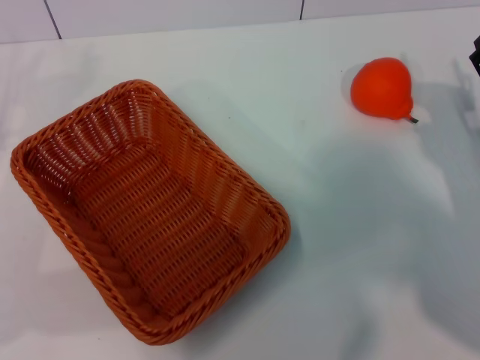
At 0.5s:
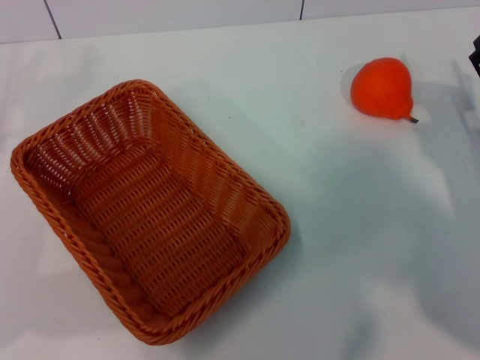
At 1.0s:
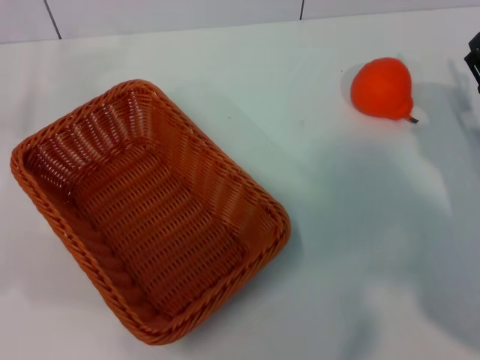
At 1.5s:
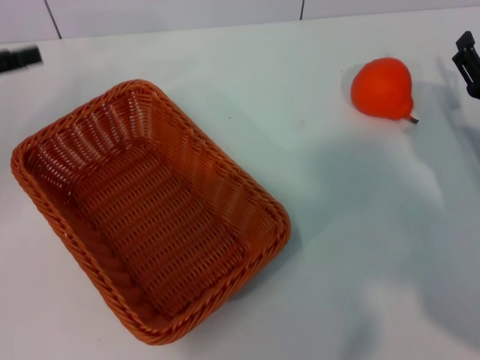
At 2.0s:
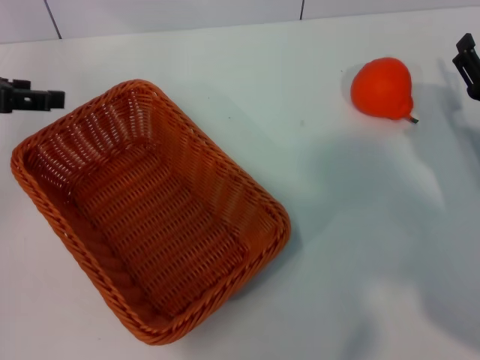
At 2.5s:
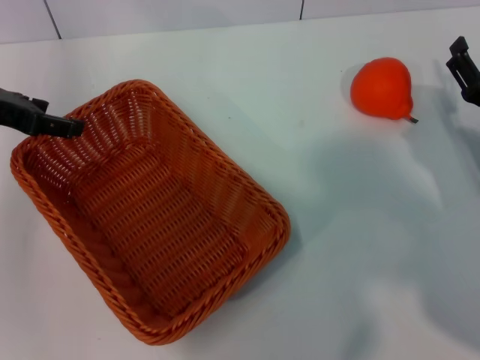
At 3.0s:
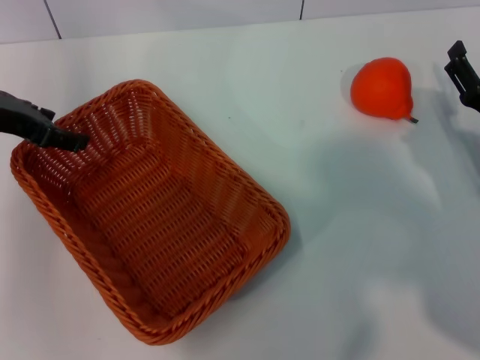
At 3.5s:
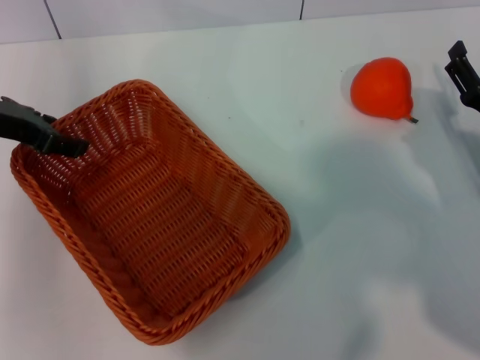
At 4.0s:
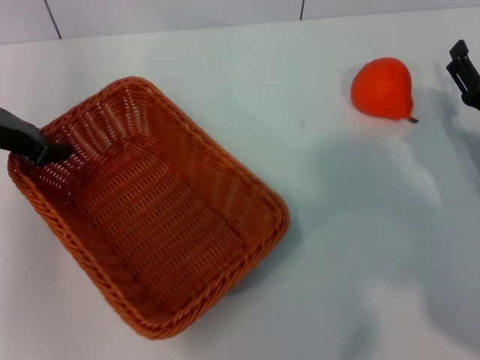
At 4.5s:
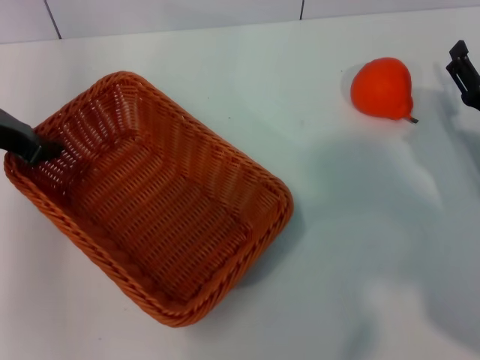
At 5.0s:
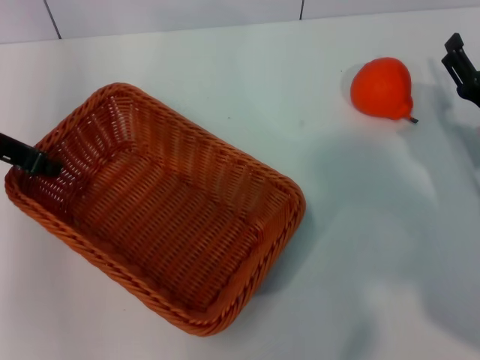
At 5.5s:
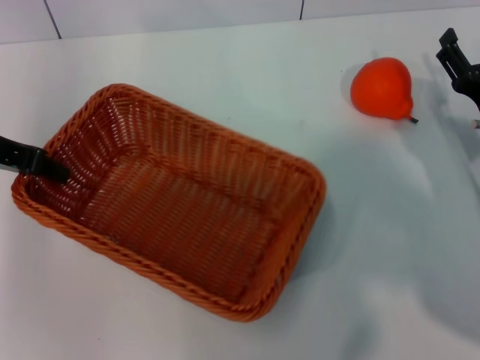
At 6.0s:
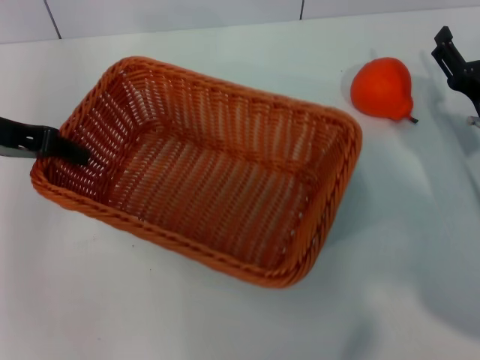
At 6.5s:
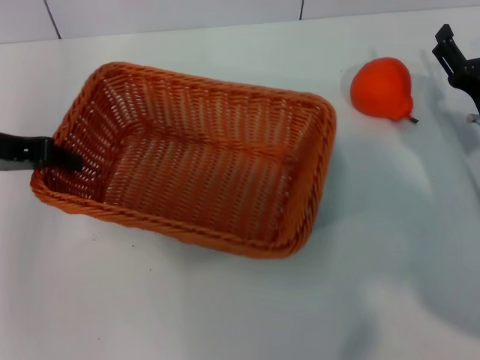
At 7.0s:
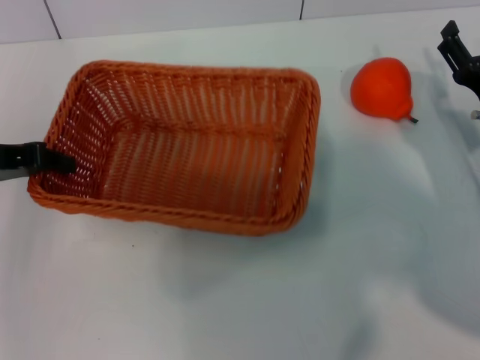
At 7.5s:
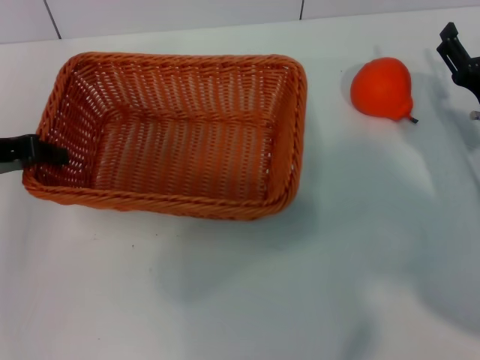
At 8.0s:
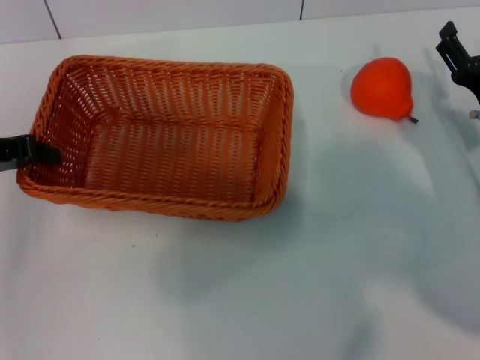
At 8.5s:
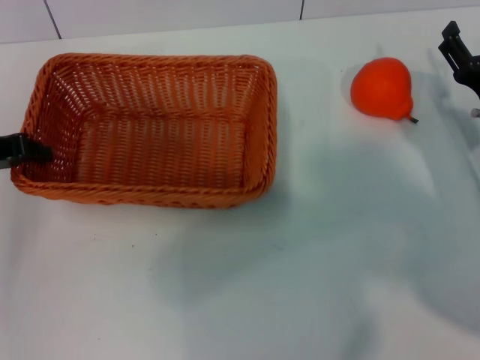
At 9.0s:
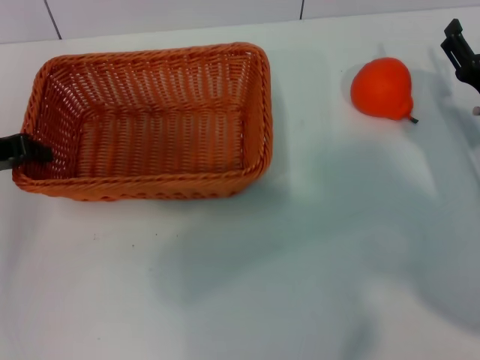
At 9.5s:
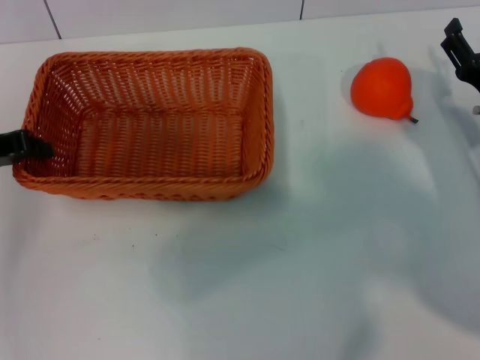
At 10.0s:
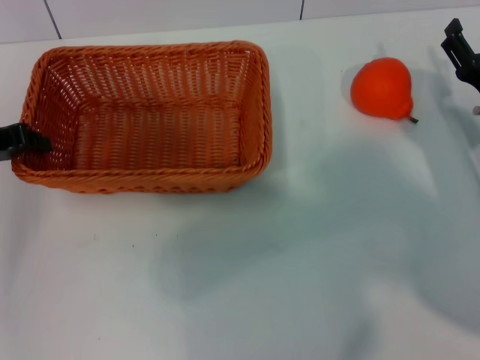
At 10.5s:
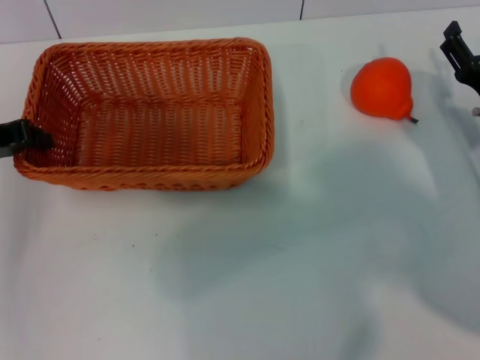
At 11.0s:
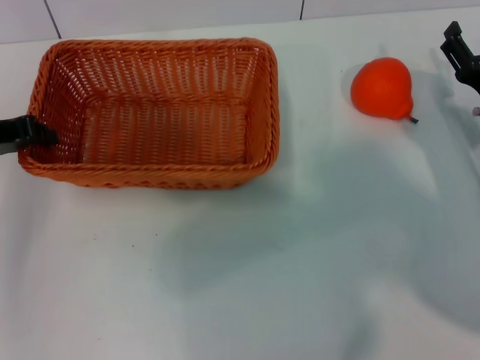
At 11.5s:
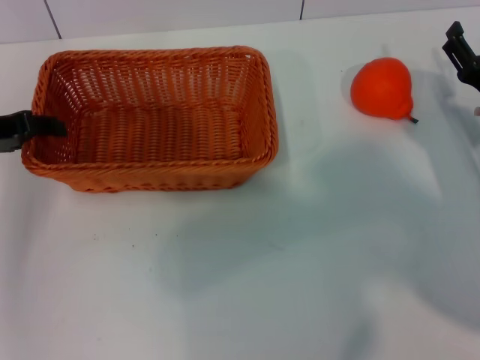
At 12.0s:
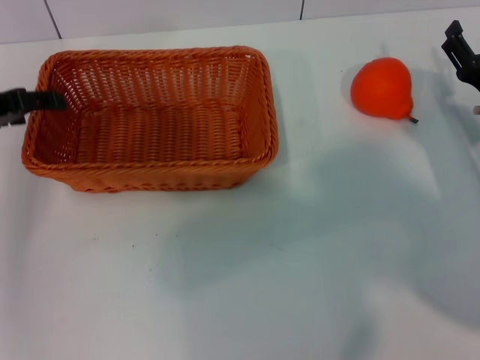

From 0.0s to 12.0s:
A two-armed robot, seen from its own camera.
Task of the whole recording: the left gripper pick up the yellow basket and place it horizontally in the middle of the table, the right gripper pick up the orange and place it into the yellow basket.
Step, from 0.0s to 5.5s: Pick up the light basket with the left gripper.
From 0.0s to 2.0s: The left gripper moves upward and forward, roughly 15 cm.
From 2.0s to 4.0s: The left gripper moves about 5 cm, and closes its fingers.
From 4.0s to 6.0s: The left gripper closes its fingers.
From 6.0s to 8.0s: The left gripper changes place by approximately 5 cm.
From 8.0s to 10.0s: The grippers stay close to where they were, moving slightly.
From 10.0s to 12.0s: The left gripper opens up.

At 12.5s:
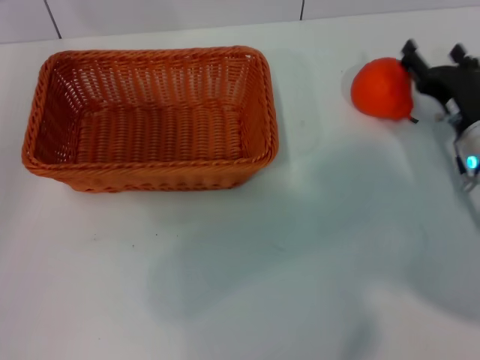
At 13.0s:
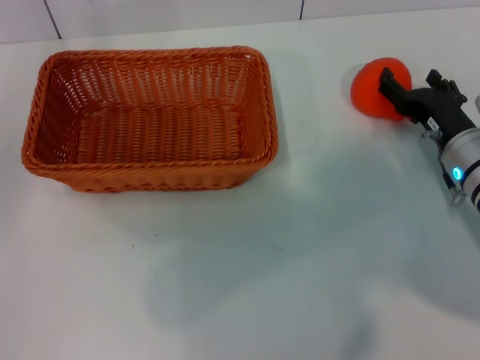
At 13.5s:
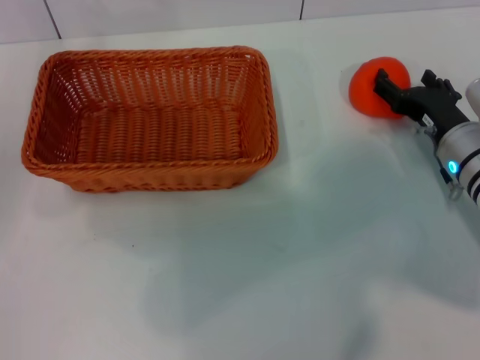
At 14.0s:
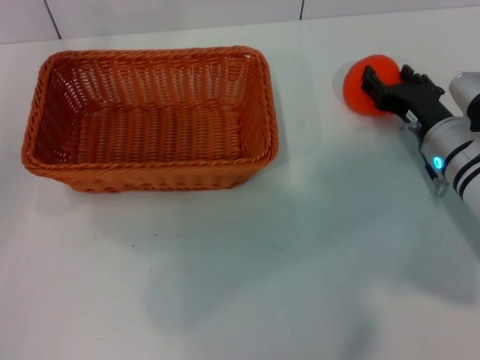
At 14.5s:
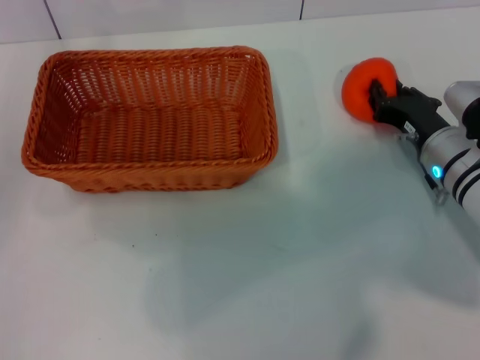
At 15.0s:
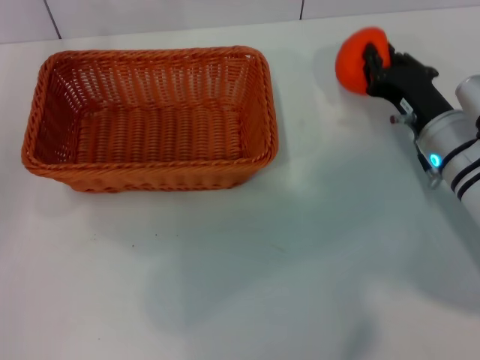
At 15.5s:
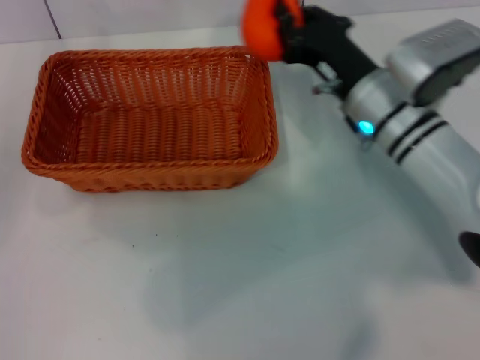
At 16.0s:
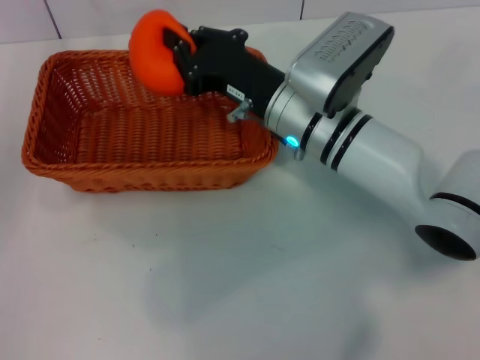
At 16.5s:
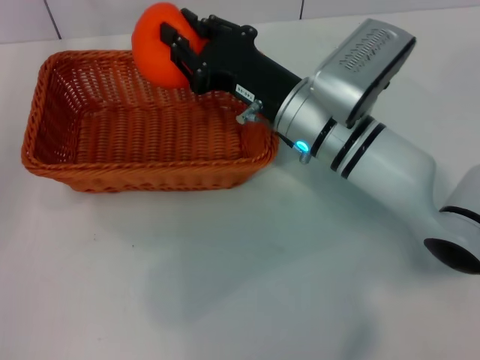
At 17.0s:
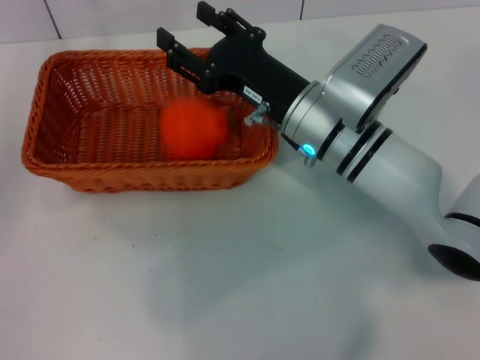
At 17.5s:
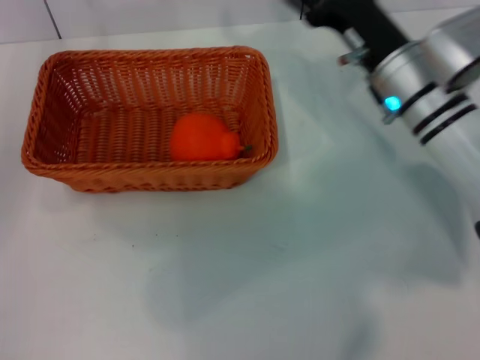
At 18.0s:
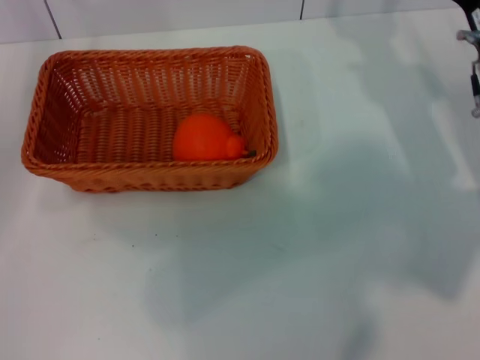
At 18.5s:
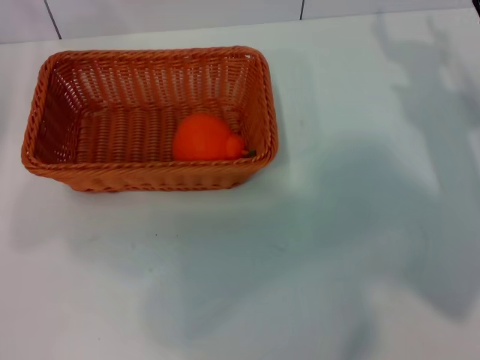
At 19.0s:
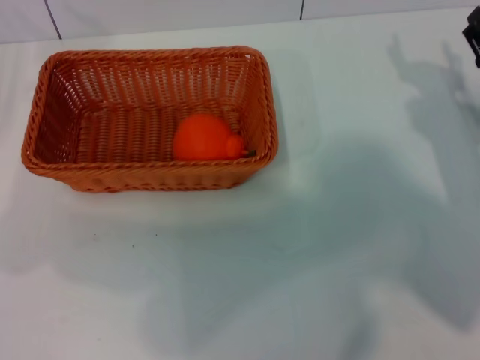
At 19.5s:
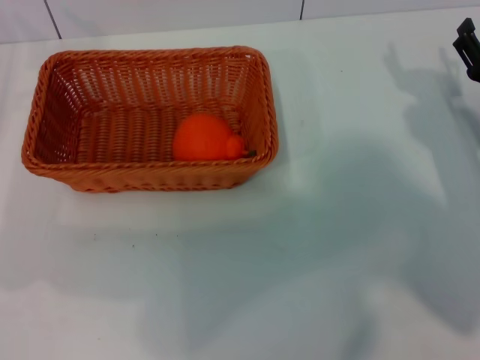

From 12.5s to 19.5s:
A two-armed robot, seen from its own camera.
Task of the whole recording: the left gripper pick up the yellow basket and place it horizontally in the middle of the table, the right gripper pick up the orange and place it into the yellow basket.
Step, from 12.5s to 15.0s: Pick up the orange with the right gripper.
Step, from 15.5s to 17.0s: Place the orange into the light basket with the right gripper.
From 12.5s to 14.5s: The right gripper closes.
From 14.5s to 16.0s: The right gripper travels to the left and upward by about 20 cm.
From 16.0s to 17.5s: The right gripper is displaced to the right by approximately 10 cm, and opens.
From 17.5s to 19.5s: The left gripper travels to the left by approximately 5 cm. The right gripper heads to the right, backward and downward, covering some 15 cm.

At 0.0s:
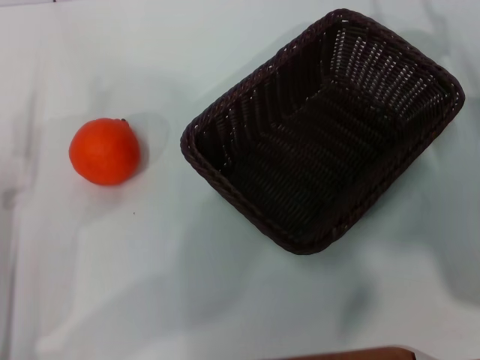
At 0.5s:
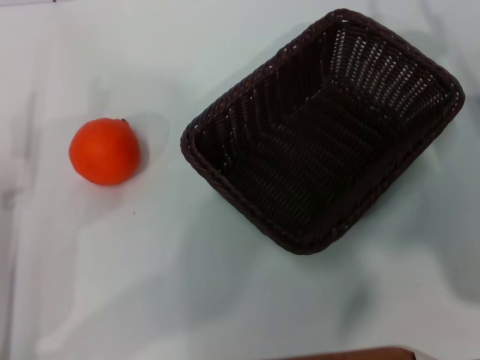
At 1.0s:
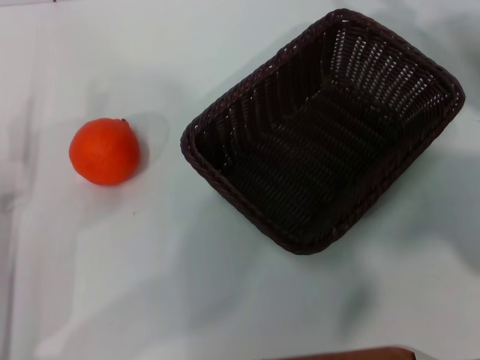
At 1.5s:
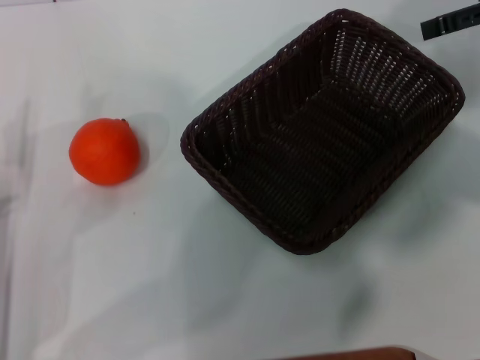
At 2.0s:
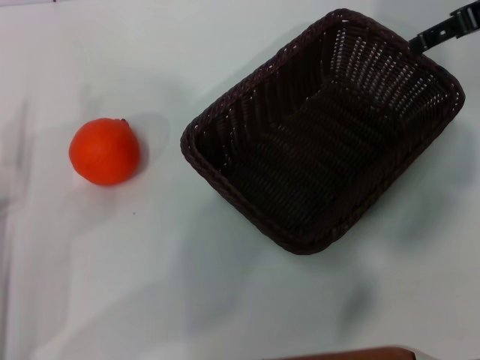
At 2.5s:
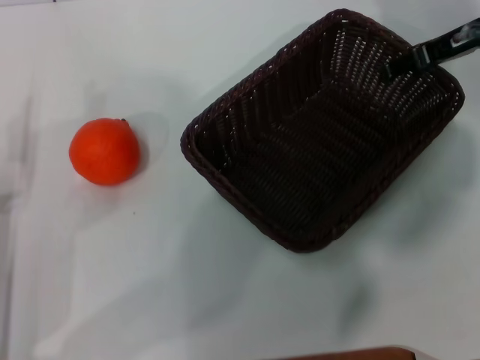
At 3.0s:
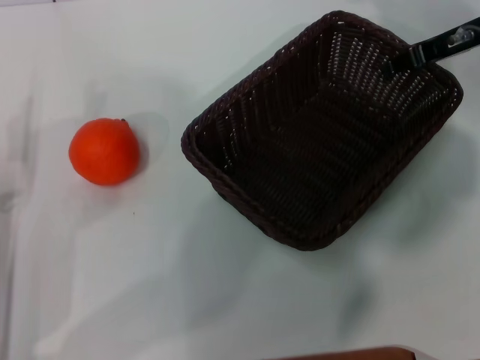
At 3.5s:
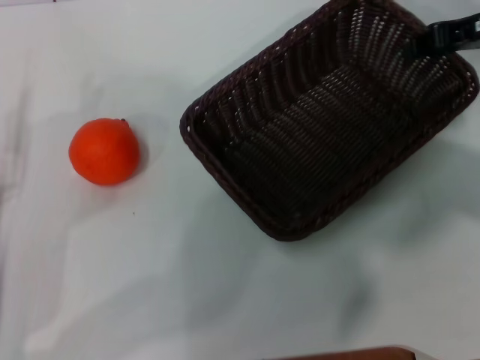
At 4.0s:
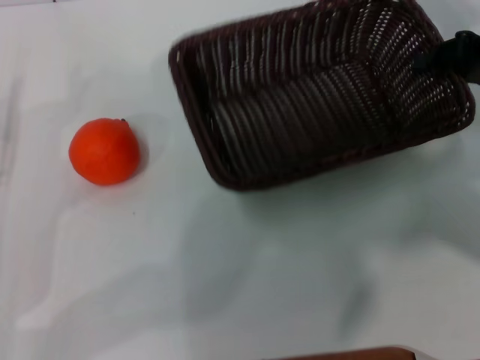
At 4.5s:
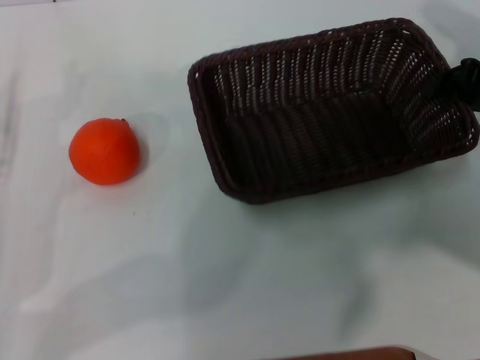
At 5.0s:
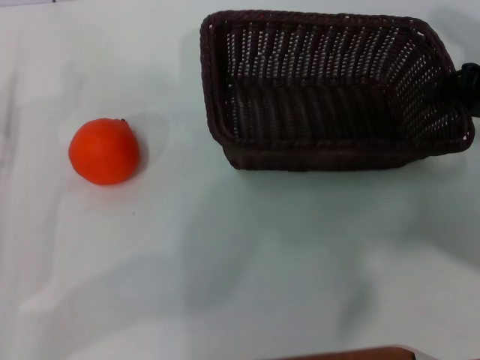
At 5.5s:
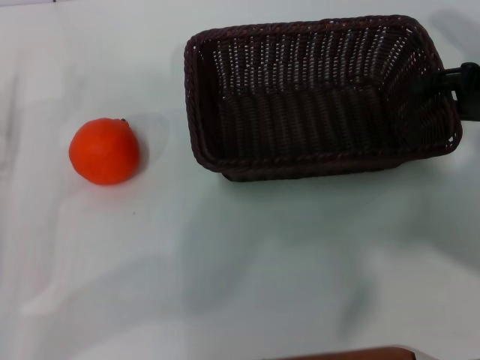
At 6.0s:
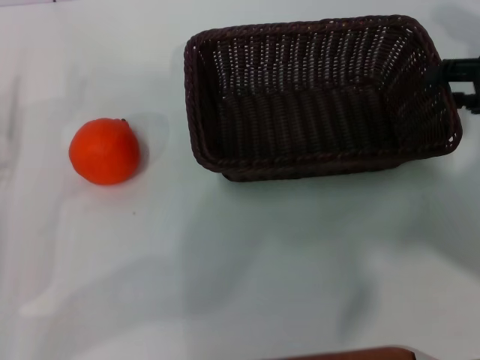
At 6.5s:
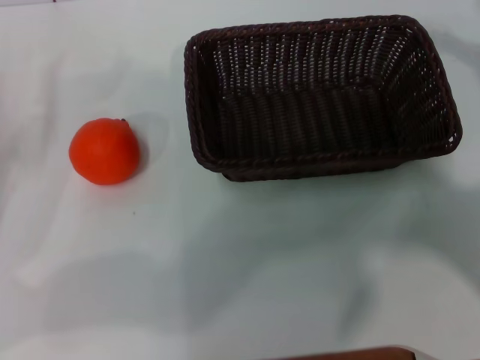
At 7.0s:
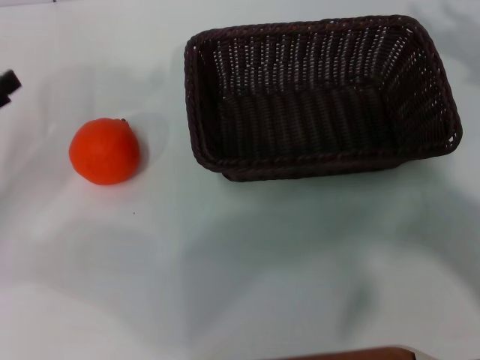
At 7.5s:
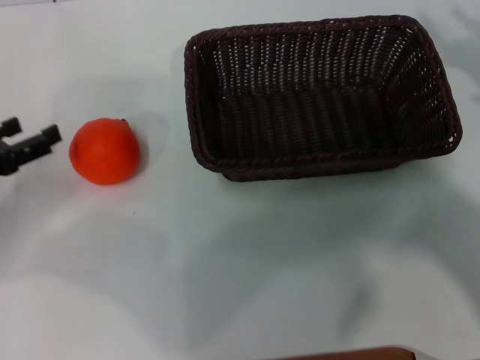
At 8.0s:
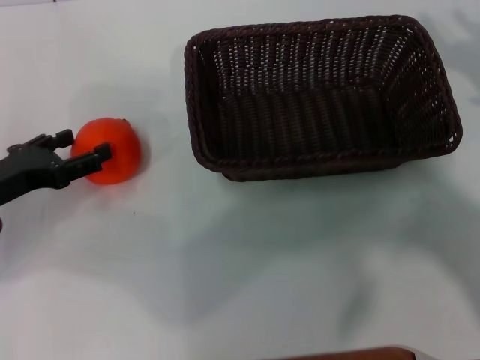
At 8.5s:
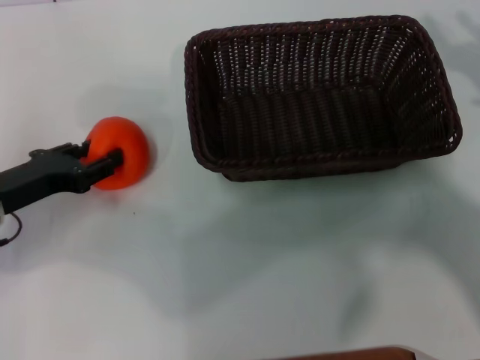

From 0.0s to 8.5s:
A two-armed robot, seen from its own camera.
Task of the whole recording: the right gripper pick up the black basket and place it horizontally in the middle of the table, the left gripper pick up the orange and place it into the black basket.
Step, from 0.0s to 3.5s: Pick up the dark basket with the right gripper.
Step, from 4.0s to 6.0s: Place the dark basket in the center of view with the right gripper.
From 0.0s to 2.0s: The right gripper travels upward and forward by roughly 20 cm.
From 2.0s to 4.0s: The right gripper is displaced downward and backward by approximately 10 cm, and closes up.
From 4.0s to 6.5s: The right gripper shifts some 10 cm to the right and backward, and opens up.
From 6.5s to 8.5s: The left gripper shifts some 5 cm to the right.
